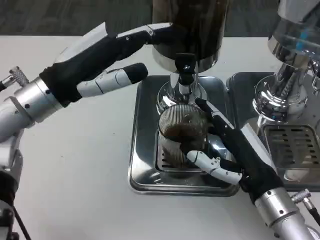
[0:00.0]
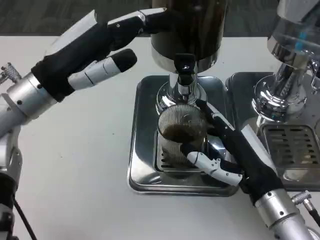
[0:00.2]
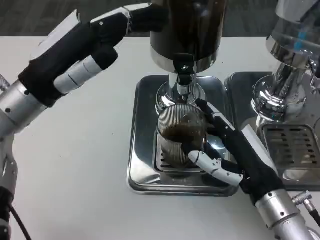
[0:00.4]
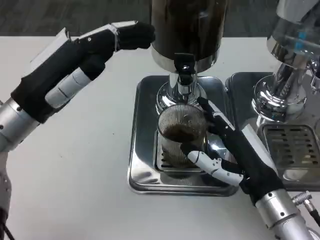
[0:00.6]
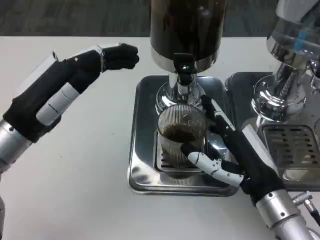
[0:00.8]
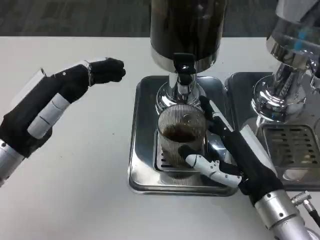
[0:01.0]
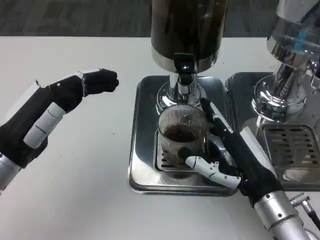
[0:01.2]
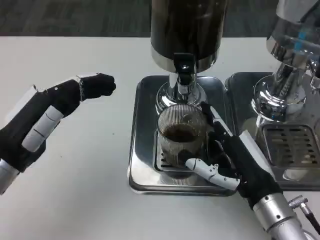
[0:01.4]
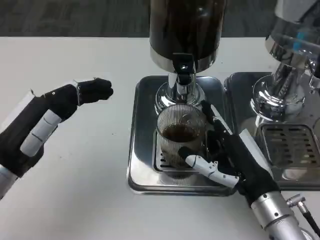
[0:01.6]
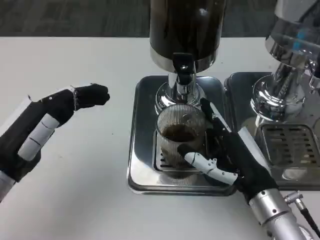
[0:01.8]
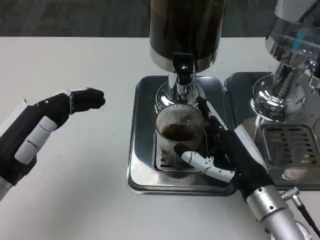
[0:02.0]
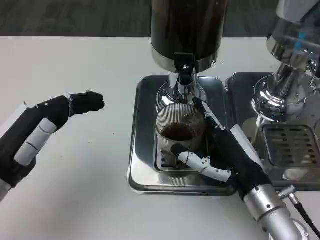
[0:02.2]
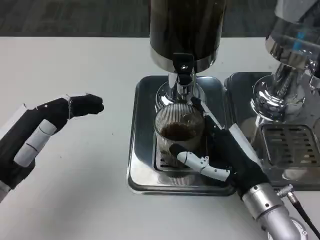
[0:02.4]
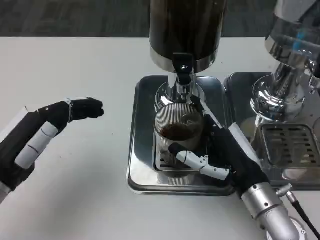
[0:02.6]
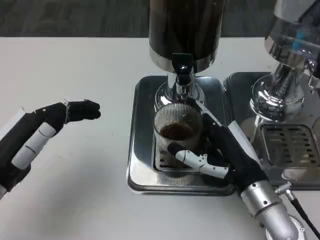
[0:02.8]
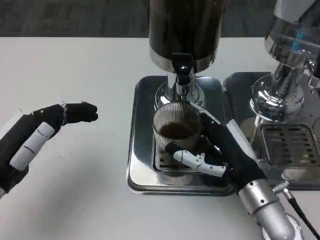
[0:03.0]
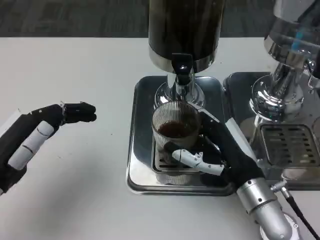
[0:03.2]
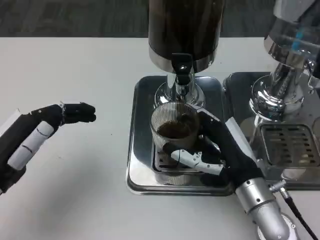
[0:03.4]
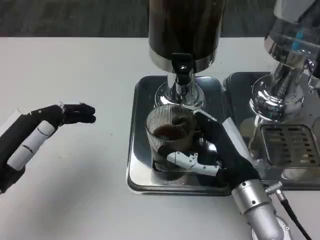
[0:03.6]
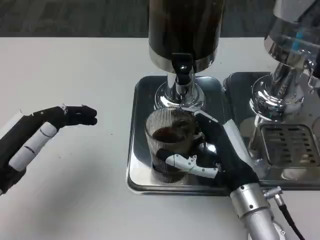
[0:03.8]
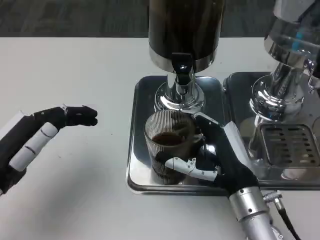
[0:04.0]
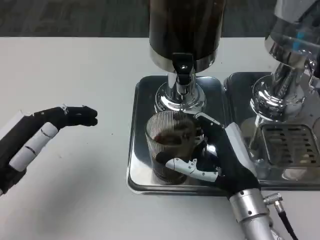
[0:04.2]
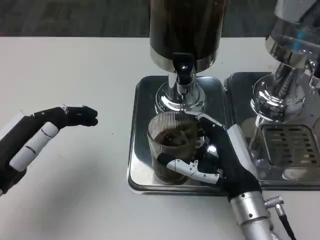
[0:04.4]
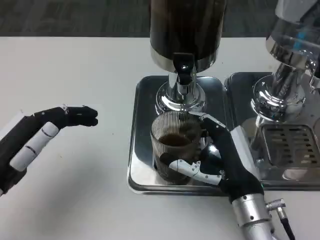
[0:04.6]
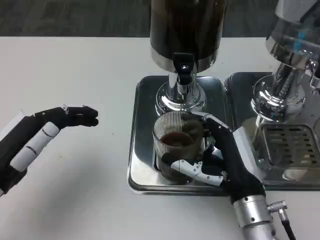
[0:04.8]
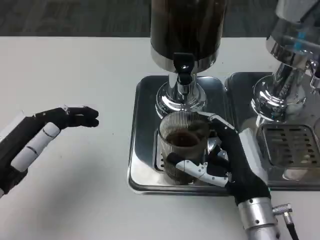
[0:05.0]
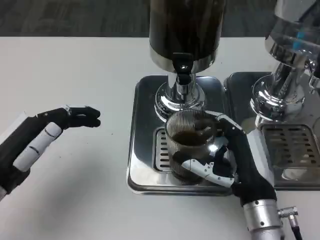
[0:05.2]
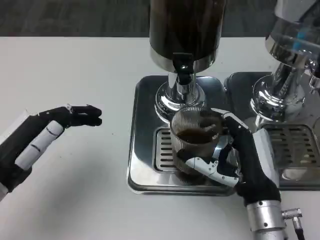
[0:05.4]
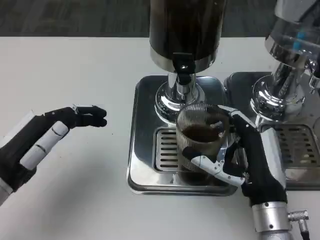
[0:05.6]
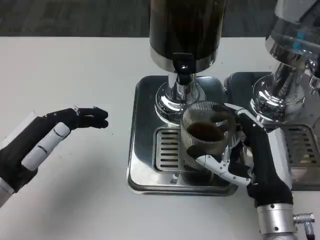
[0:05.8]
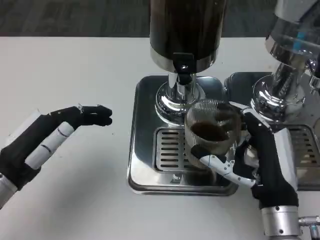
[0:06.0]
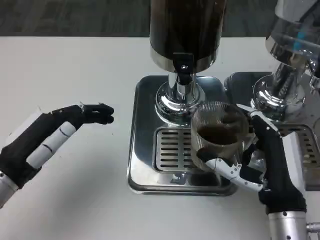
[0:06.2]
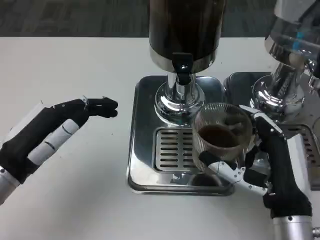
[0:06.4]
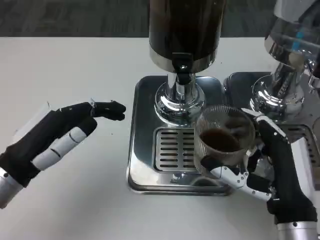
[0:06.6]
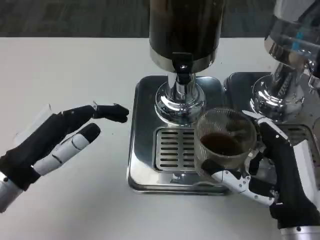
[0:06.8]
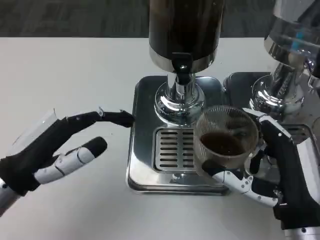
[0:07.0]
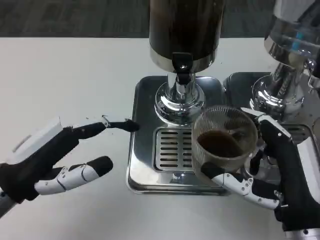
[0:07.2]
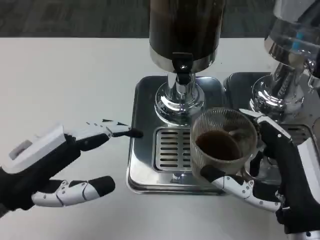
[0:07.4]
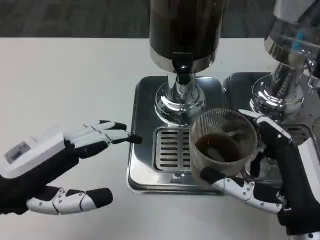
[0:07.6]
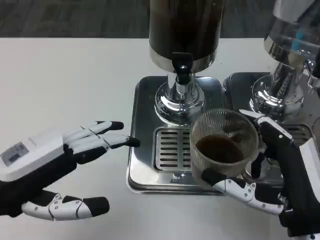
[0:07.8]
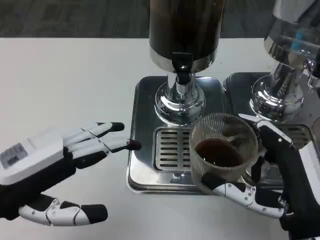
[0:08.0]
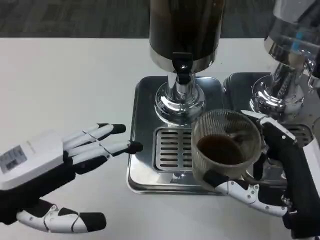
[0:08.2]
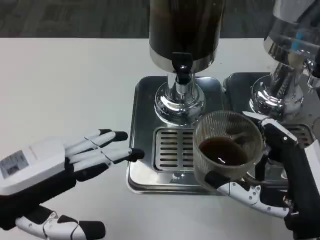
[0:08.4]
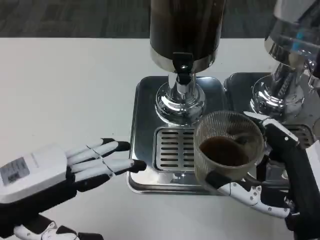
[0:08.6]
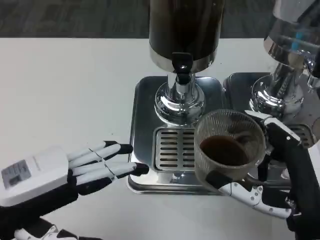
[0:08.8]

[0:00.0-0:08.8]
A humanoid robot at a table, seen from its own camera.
Task of the whole recording: Grasp the cup under the faucet to collect the drink, then remove the cup.
0.0 to 1.4 s: The left hand heads backward, downward and to the left, covering about 10 cm.
3.0 to 4.4 s: The hands stay close to where they were, moving slightly.
5.8 to 7.4 s: The right hand shifts about 5 cm backward. The left hand moves roughly 5 cm.
7.4 to 8.8 s: The hands stay close to where they were, moving slightly.

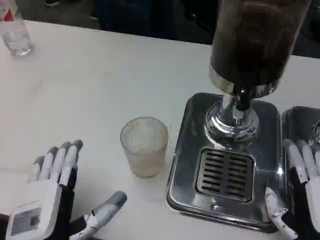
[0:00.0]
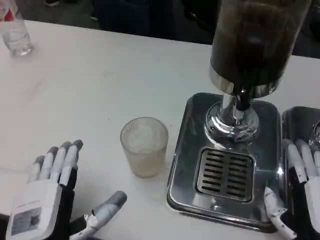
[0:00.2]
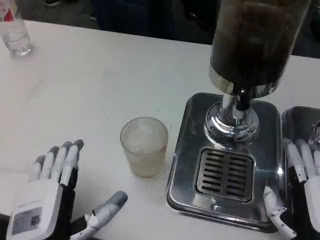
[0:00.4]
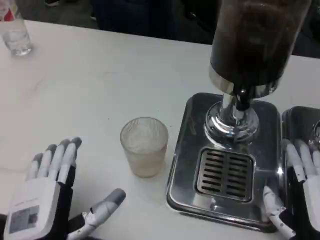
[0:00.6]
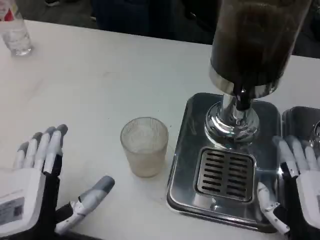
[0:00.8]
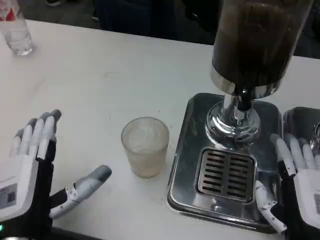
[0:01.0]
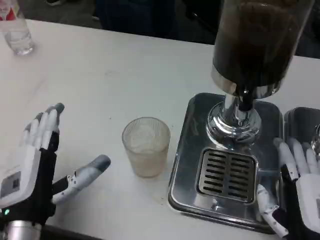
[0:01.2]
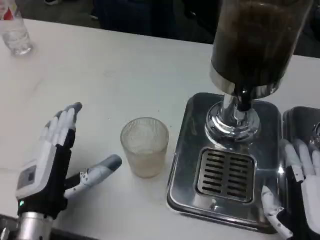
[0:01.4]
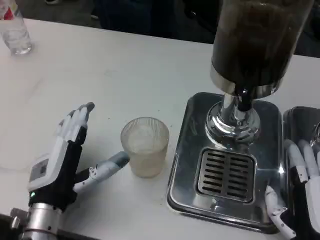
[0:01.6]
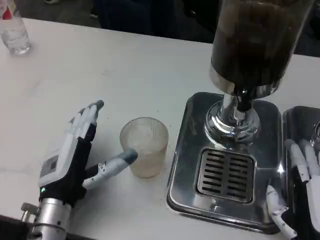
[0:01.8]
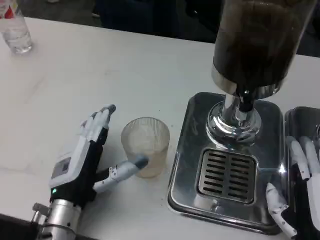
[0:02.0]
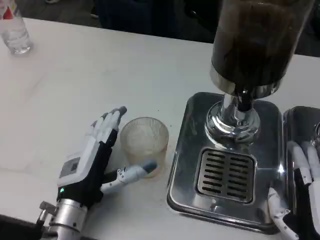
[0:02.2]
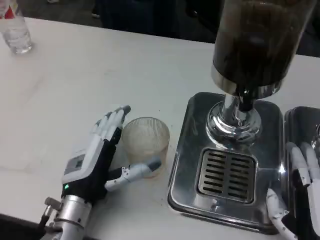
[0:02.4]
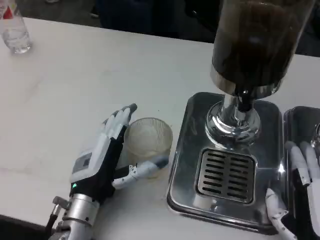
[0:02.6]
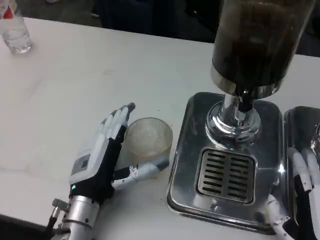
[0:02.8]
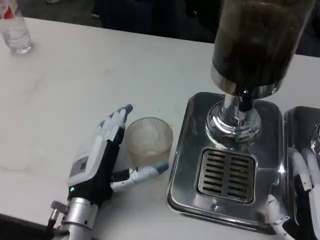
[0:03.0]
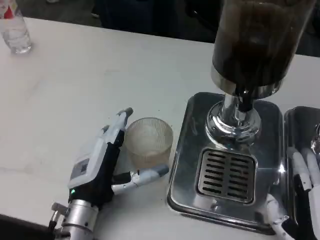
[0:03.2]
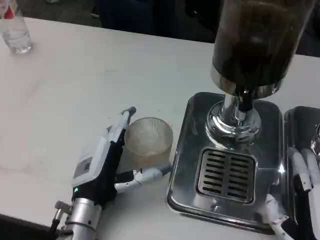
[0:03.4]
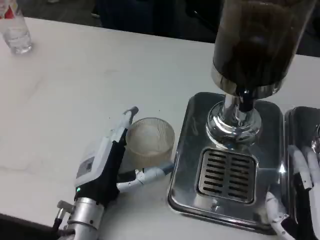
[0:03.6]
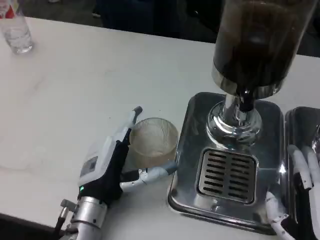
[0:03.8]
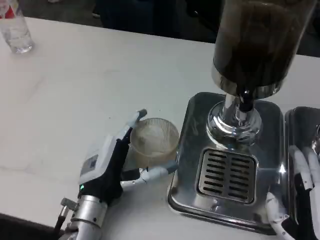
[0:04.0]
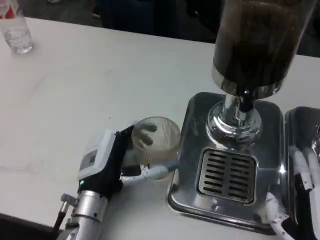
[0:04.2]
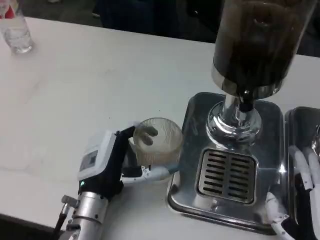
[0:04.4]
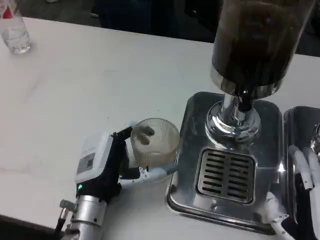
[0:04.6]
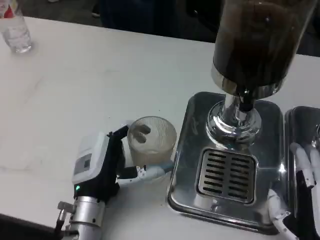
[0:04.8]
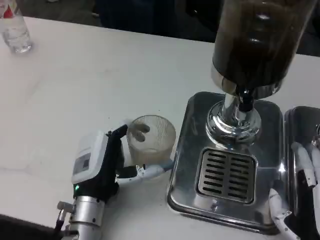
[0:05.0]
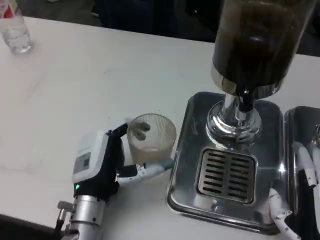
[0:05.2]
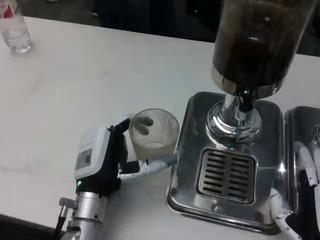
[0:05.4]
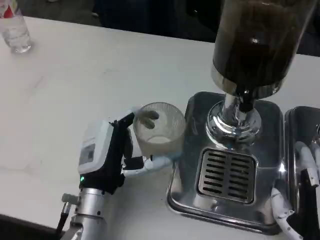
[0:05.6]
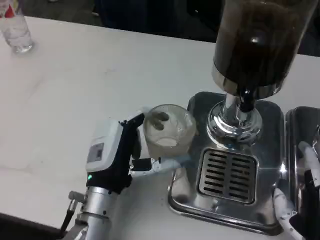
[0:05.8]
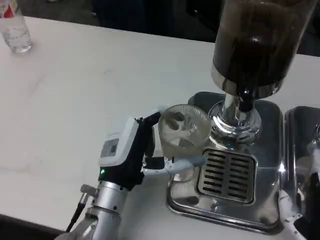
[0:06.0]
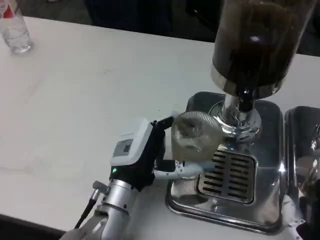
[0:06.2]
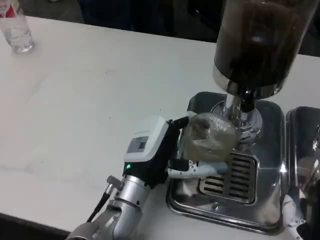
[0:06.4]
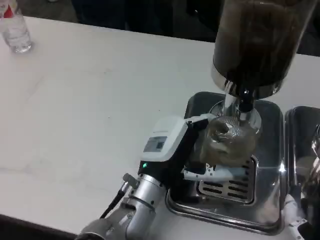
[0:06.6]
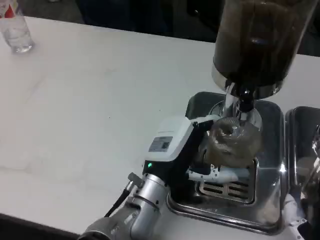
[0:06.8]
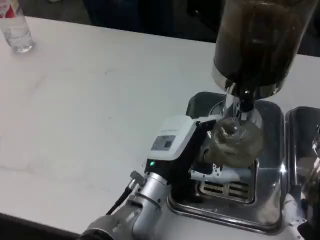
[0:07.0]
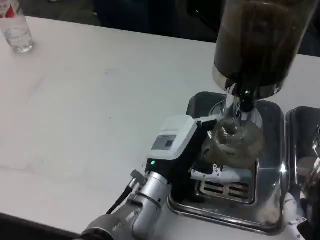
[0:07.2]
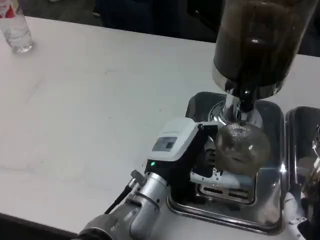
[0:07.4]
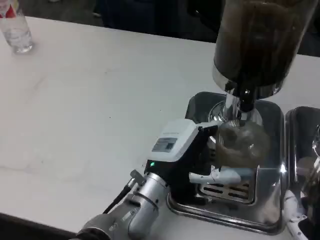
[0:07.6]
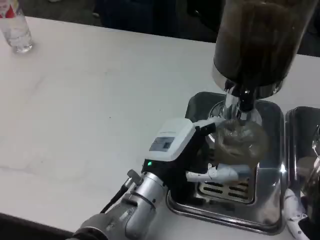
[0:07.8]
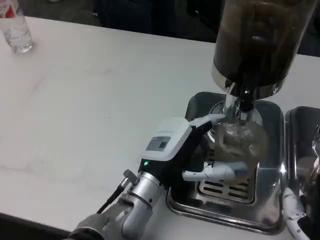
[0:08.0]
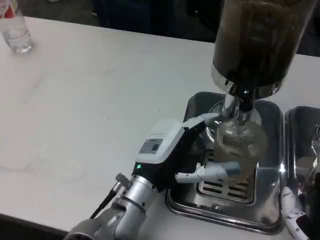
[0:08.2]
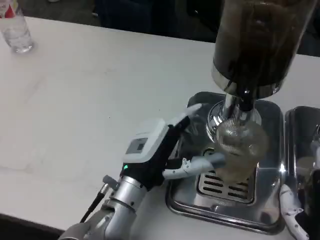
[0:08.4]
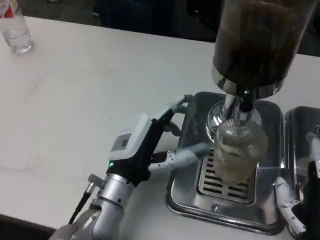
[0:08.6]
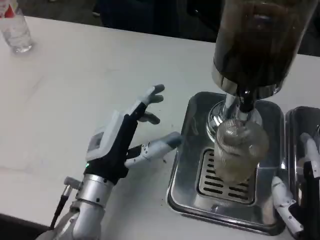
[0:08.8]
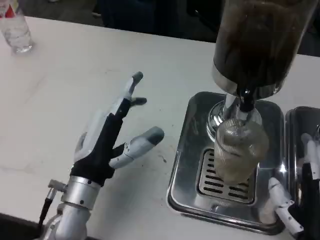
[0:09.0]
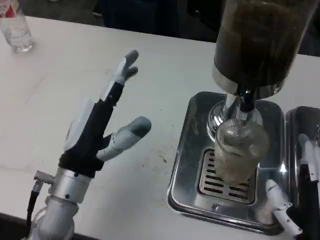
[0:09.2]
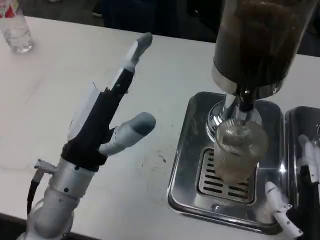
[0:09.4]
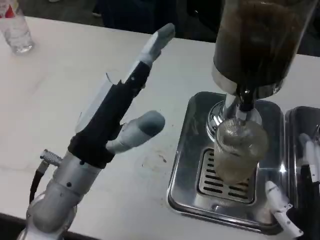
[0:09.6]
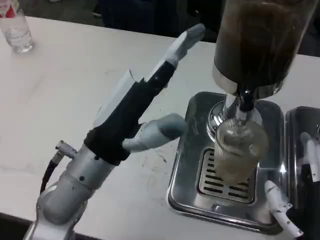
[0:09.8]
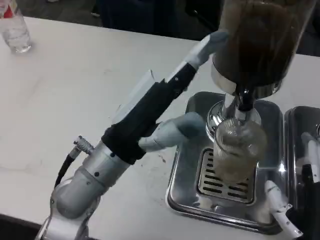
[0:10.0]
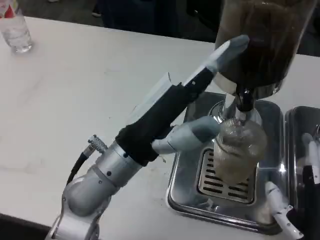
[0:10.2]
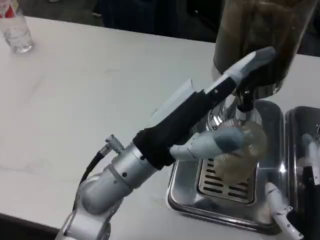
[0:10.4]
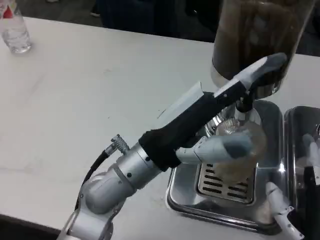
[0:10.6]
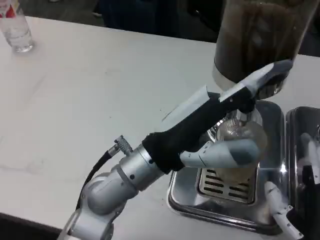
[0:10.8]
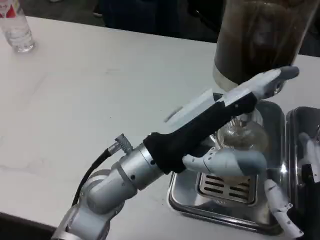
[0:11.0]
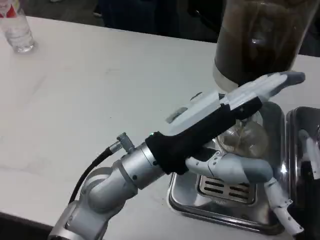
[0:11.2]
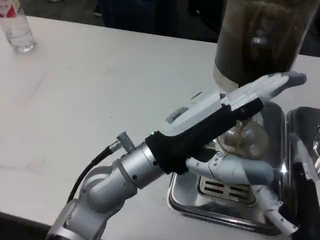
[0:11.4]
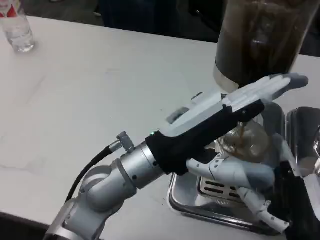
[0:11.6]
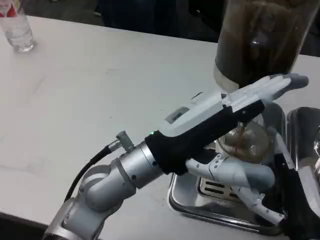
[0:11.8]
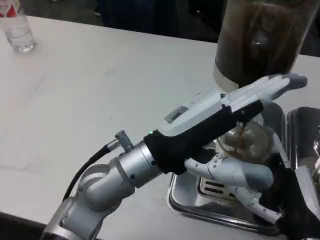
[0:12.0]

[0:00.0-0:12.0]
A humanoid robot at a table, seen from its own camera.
Task of the whole recording: Grasp the cup under the faucet to collect the drink, then remove the cup.
0.0 to 1.6 s: The left hand goes some 10 cm forward.
1.6 to 3.0 s: The hands stay close to where they were, moving slightly.
3.0 to 4.4 s: The hands move only a little.
6.0 to 7.6 s: The left hand ends up about 5 cm from where it was.
7.6 to 9.0 s: The left hand is displaced to the left by about 10 cm.
9.0 to 10.4 s: The left hand moves upward and to the right, approximately 10 cm.

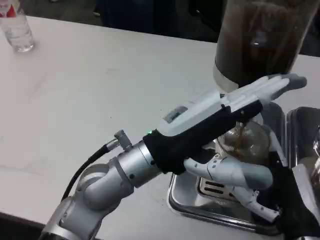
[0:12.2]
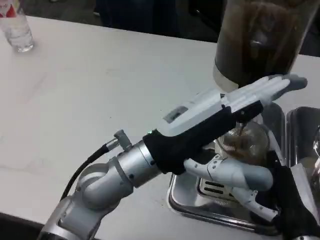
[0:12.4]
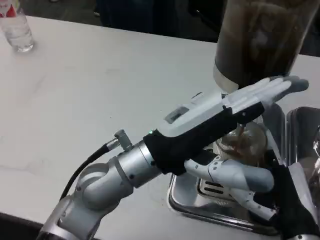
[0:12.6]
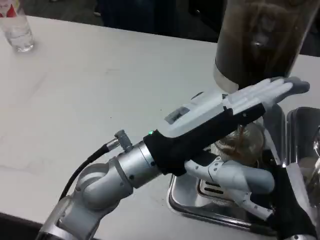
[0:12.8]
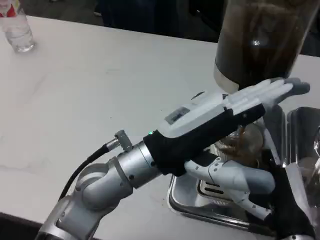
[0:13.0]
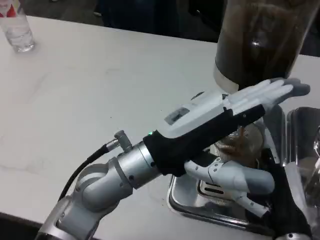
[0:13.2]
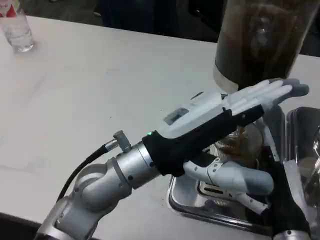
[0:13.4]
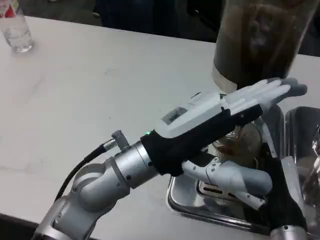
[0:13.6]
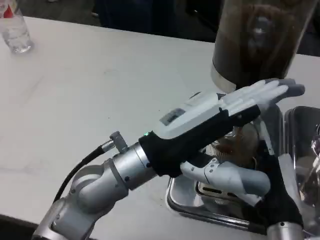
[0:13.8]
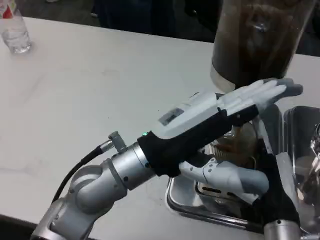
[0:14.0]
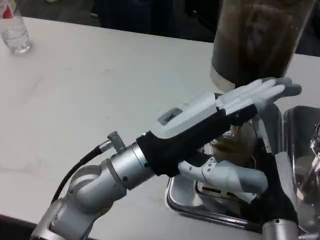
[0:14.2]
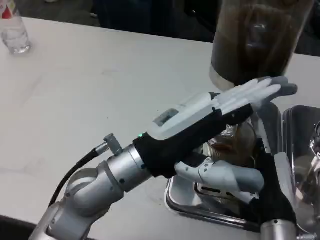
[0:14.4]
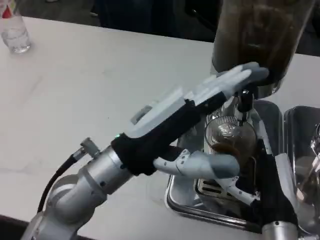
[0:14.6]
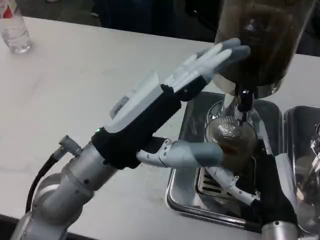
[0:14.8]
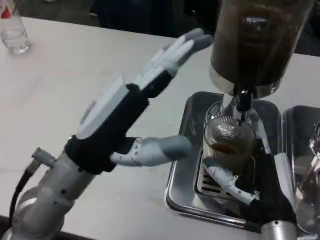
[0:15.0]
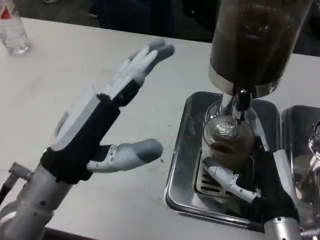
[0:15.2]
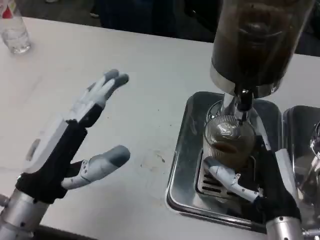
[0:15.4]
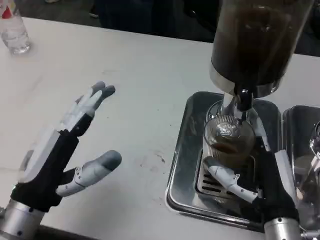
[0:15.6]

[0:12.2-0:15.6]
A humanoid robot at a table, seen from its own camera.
Task of the whole recording: Grasp the cup under the faucet to collect the drink, then remove the cup.
12.2 to 13.8 s: There are only small adjustments of the hands.
13.8 to 15.6 s: The left hand goes approximately 15 cm to the left, downward and backward.
